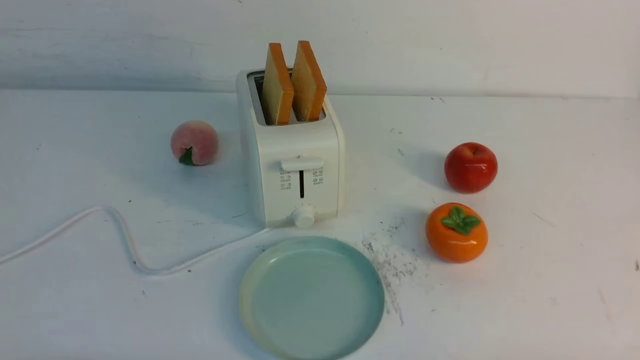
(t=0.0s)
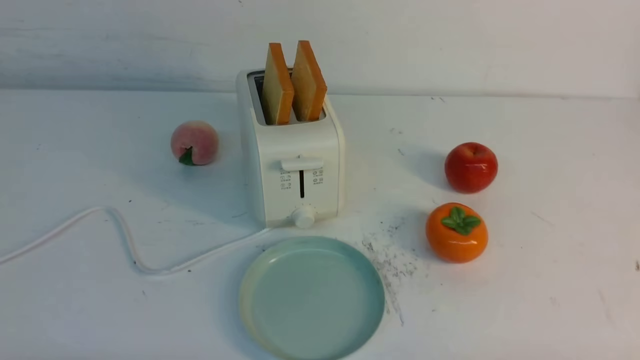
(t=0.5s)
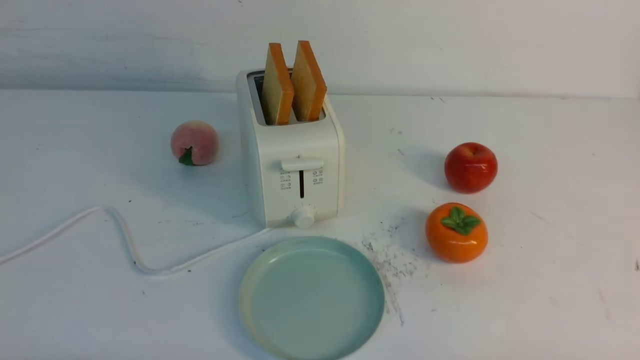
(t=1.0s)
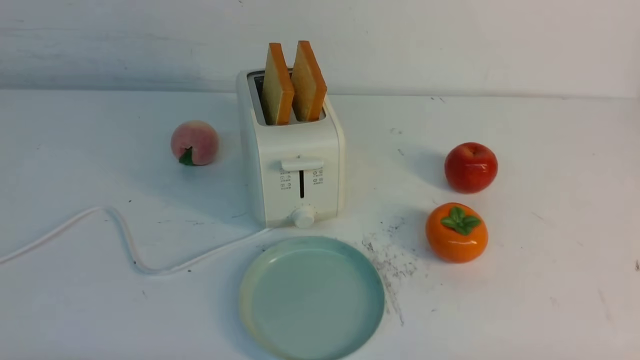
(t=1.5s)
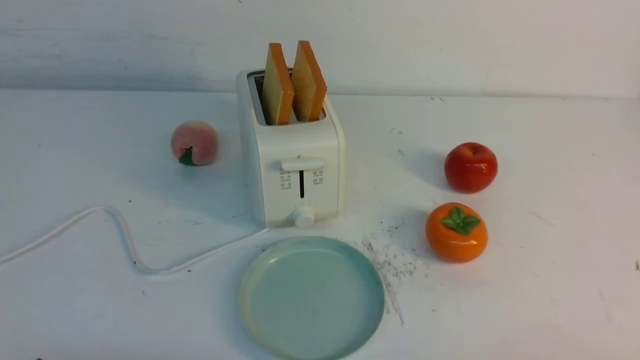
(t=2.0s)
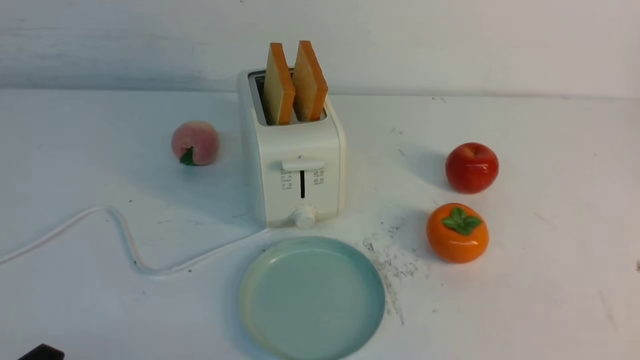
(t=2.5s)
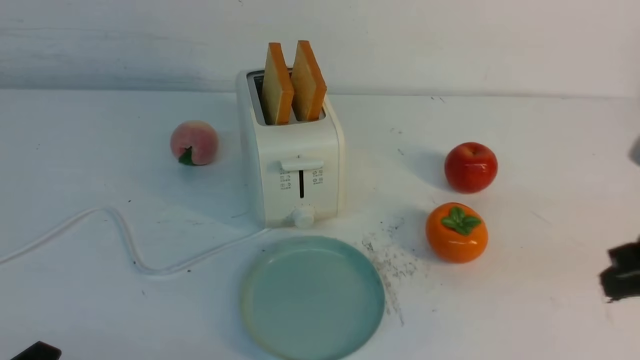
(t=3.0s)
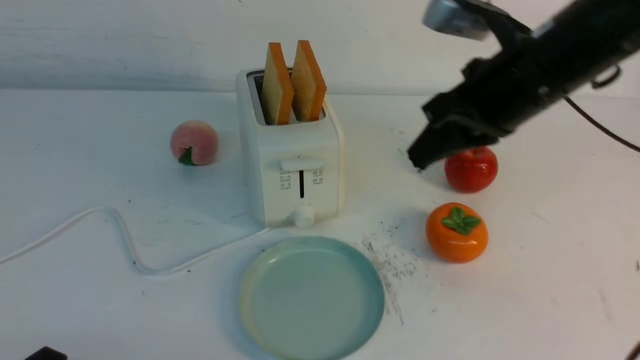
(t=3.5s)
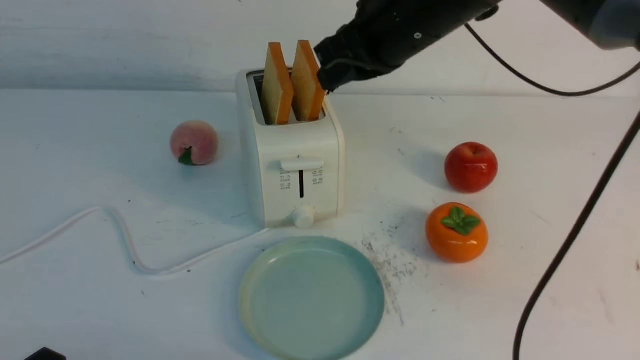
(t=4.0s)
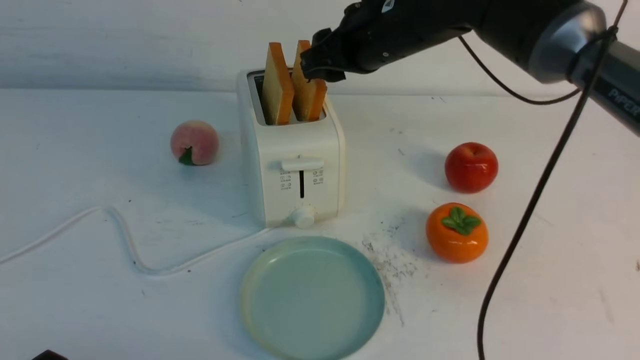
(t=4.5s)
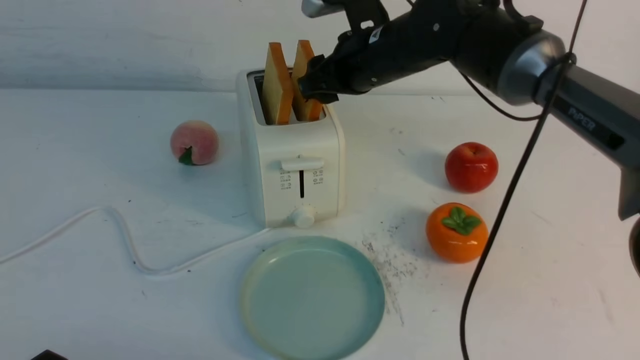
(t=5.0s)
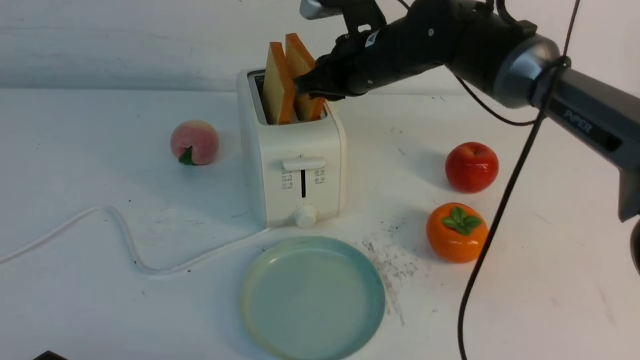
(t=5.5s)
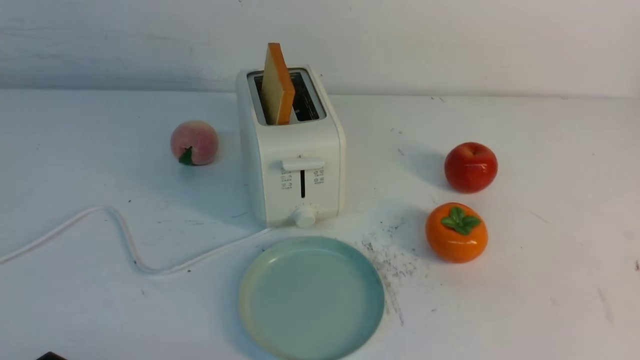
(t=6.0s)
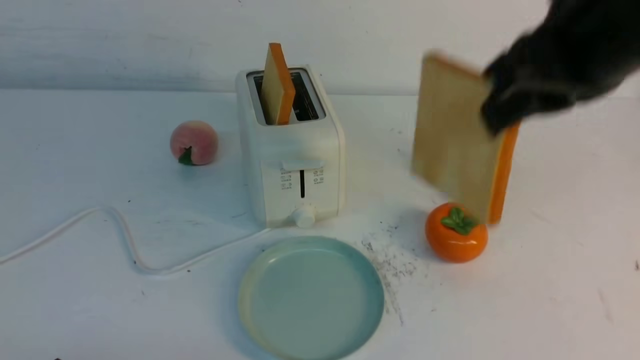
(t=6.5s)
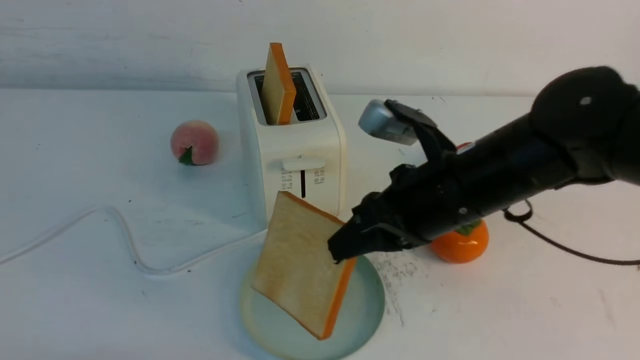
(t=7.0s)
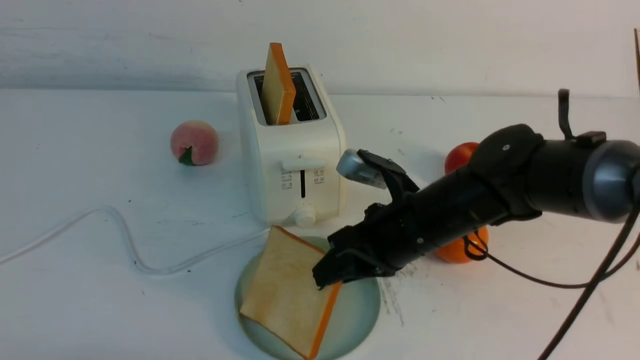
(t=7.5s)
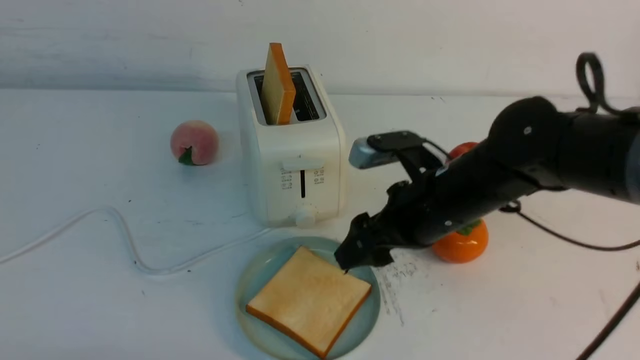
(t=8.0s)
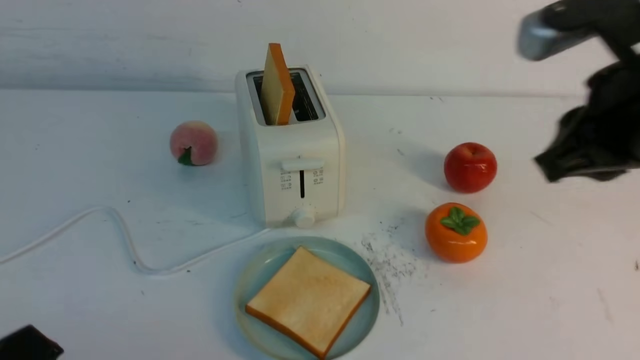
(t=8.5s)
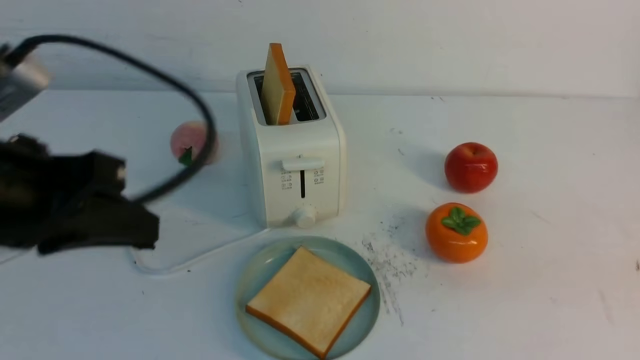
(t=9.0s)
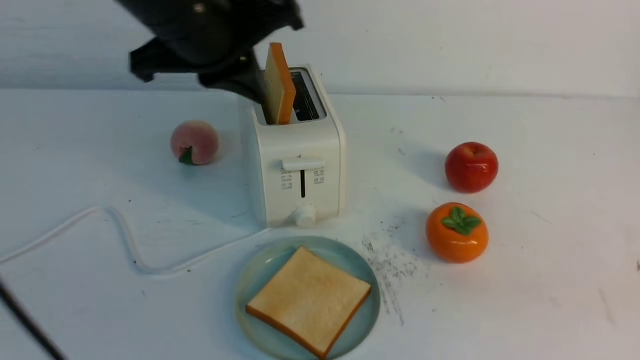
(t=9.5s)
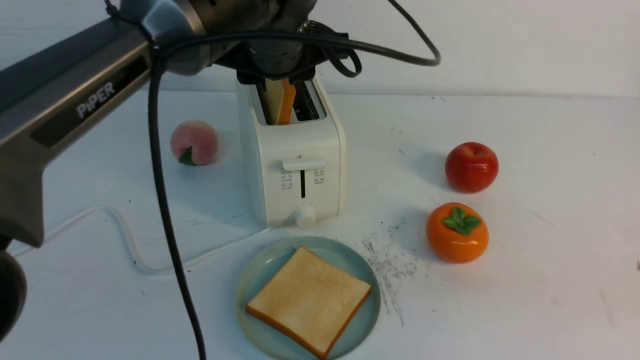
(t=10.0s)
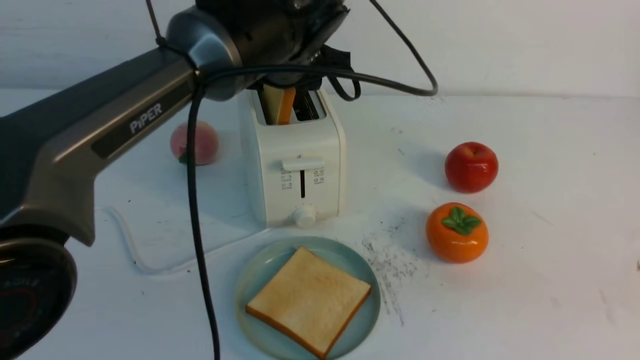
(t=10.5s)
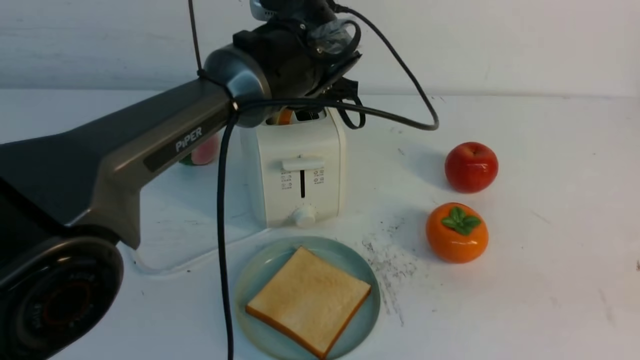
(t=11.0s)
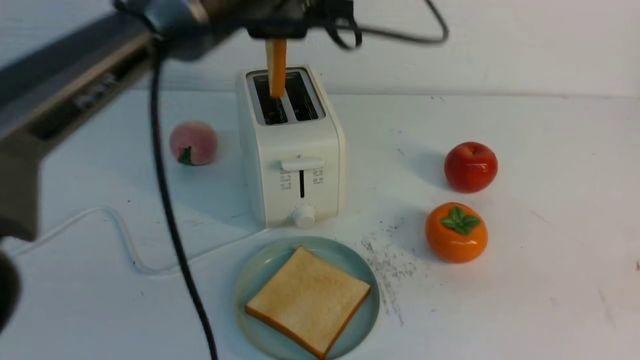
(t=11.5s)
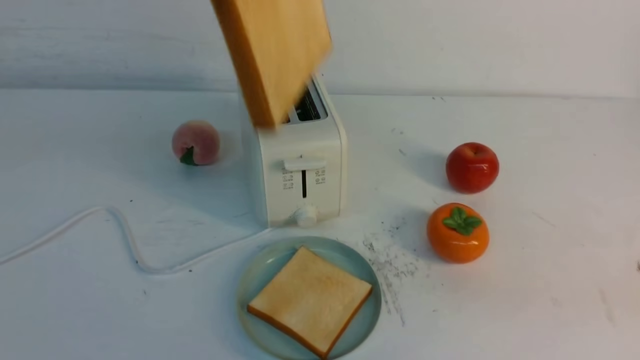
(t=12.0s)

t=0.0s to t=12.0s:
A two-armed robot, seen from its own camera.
Task of the whole recording: take toasted bread from bread machine on white table place on plate.
Step, t=0.0s to t=5.5s: use the right arm to take out a slice of bread.
Step, t=6.0s to t=8.0s: use the right arm to put a slice of bread into the plate.
Step, t=8.5s to t=11.0s: use the left arm to take out a slice of bread.
t=2.0s to t=4.0s: The right gripper is displaced forward, to the left and upward by roughly 40 cm, and closes up.
t=4.0s to t=6.0s: The right gripper shifts about 15 cm upward, backward and to the right, and opens, then closes again.
t=6.0s to t=8.0s: The right gripper heads downward, covering some 25 cm, and opens.
t=8.0s to t=10.0s: The right gripper travels backward, to the right and upward by some 30 cm, and closes up. The left gripper shifts about 40 cm forward, to the right and upward, and closes, then reopens.
t=10.0s to t=12.0s: The left gripper moves backward and upward, some 20 cm, and closes its fingers.

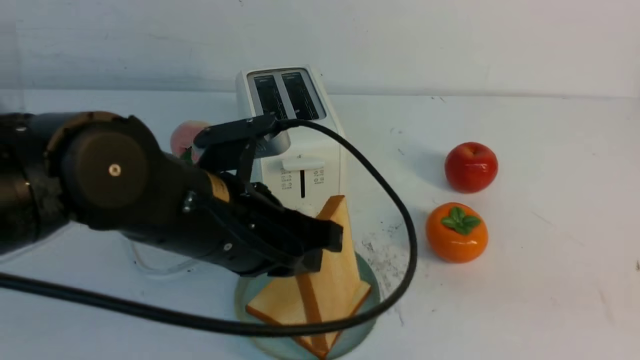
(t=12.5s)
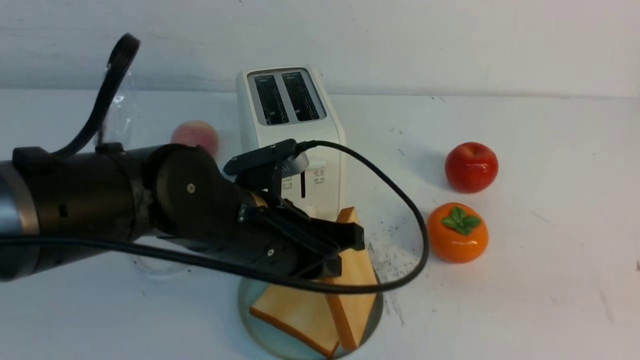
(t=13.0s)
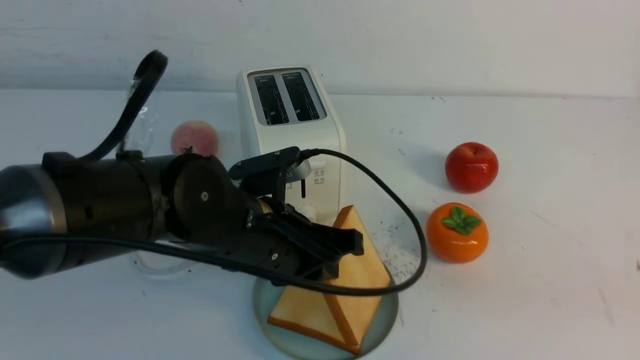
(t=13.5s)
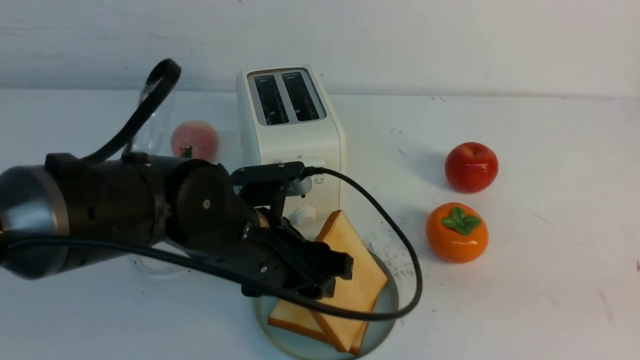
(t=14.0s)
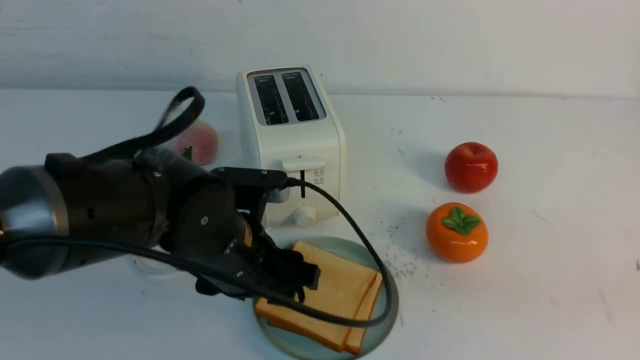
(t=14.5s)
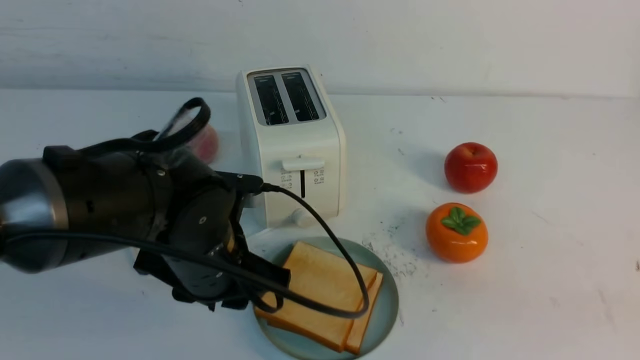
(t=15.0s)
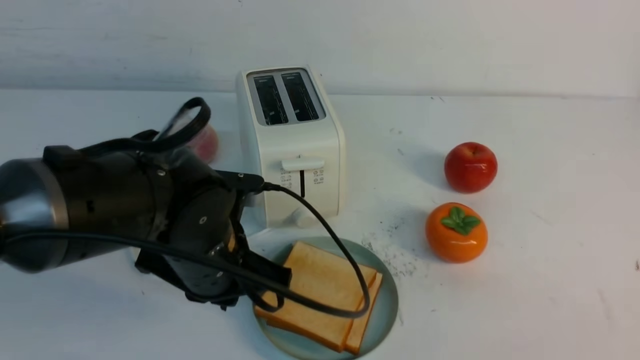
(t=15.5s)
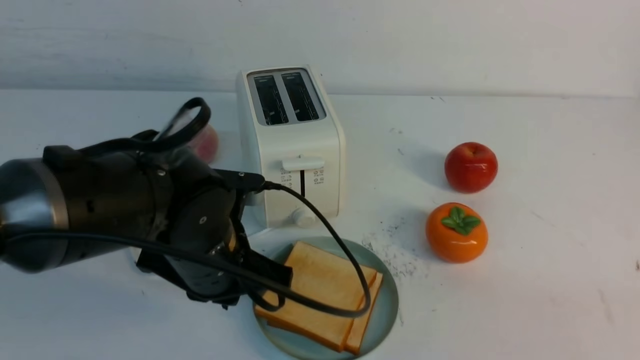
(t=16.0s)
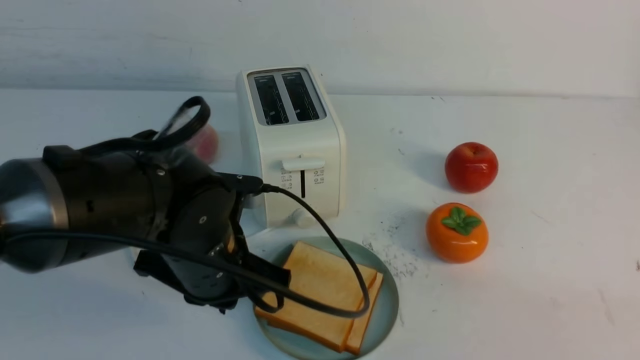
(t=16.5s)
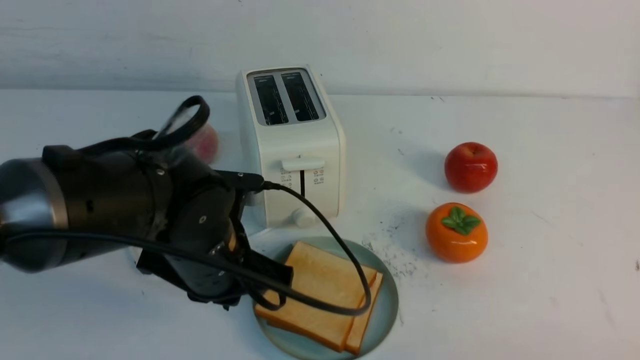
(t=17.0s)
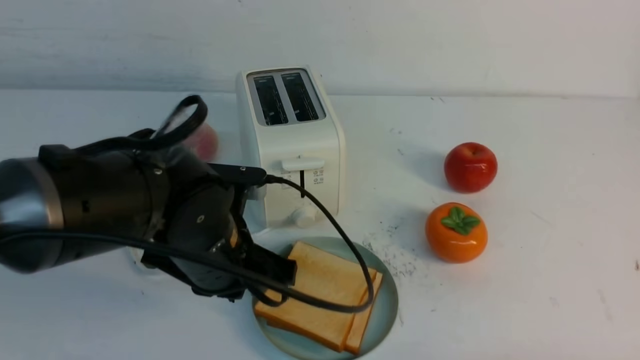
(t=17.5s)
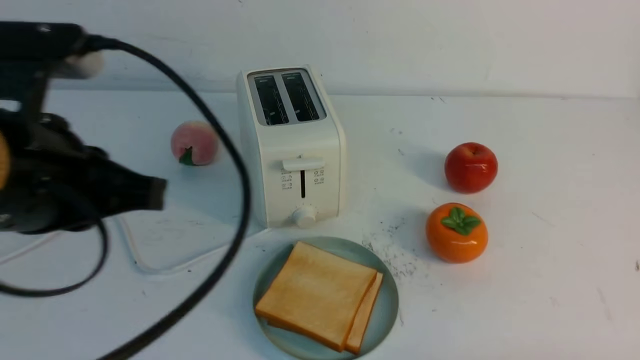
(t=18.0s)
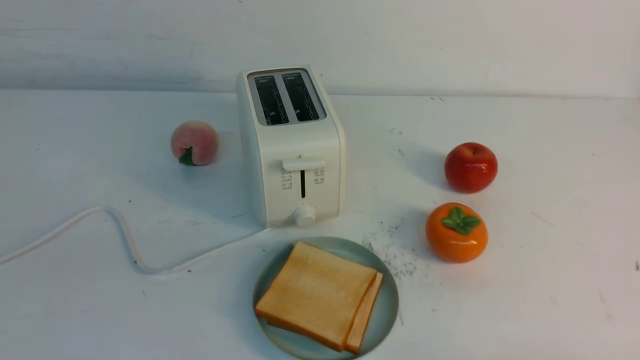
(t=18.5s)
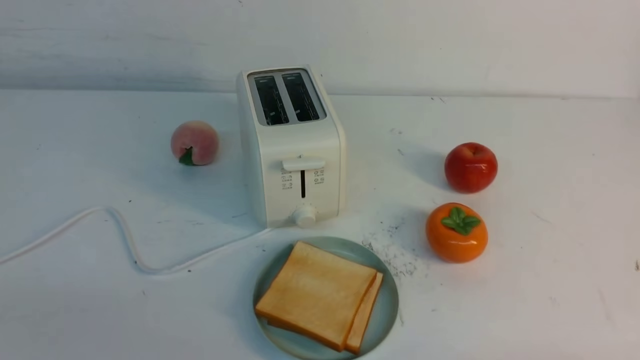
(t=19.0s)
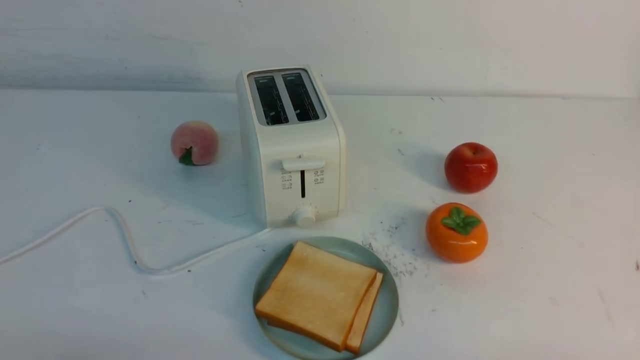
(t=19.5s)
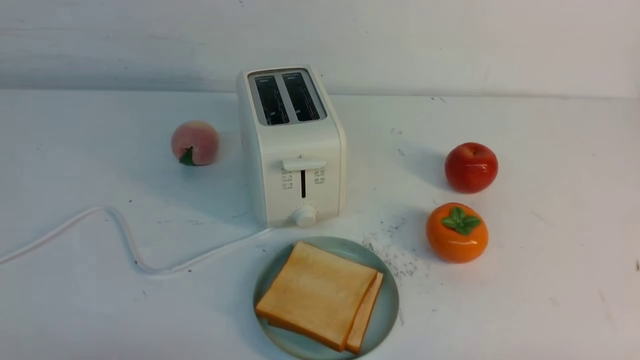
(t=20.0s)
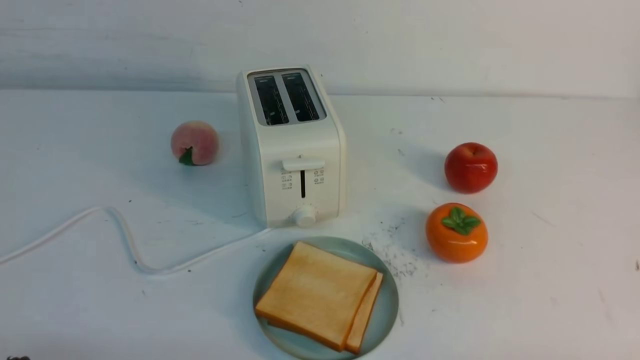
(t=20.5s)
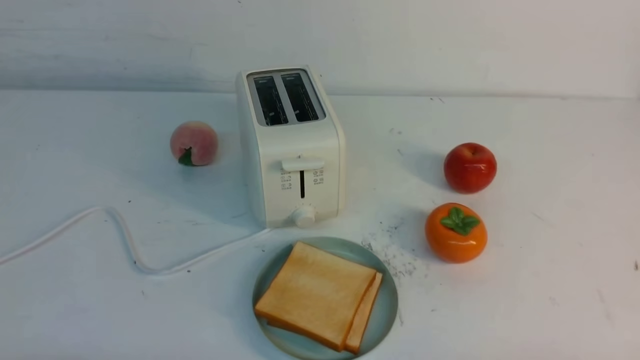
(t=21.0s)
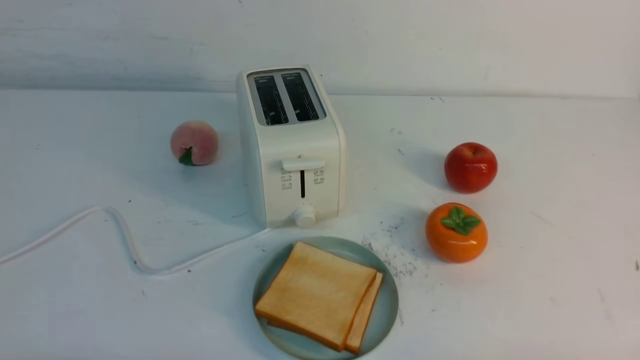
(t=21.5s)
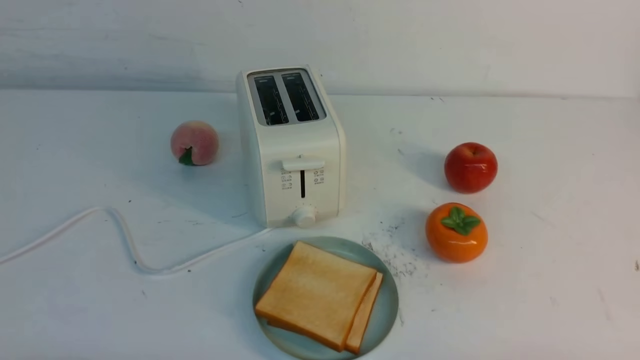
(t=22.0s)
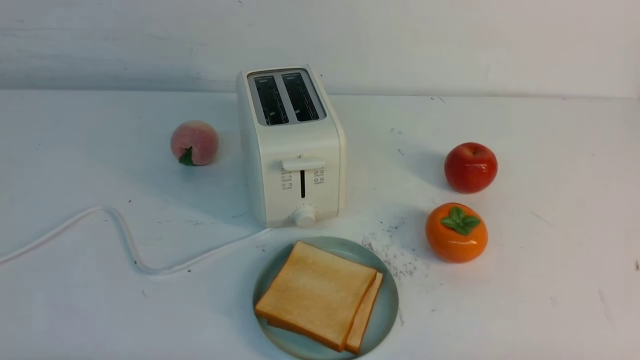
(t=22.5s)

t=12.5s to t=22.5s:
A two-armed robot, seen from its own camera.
Task of the whole recording: take toasted bread from bread machine on white table place on plate.
Step, t=12.5s to t=17.5s: use the left arm to put a slice of bread into the empty plate.
t=12.5s to t=14.5s: The left gripper goes roughly 5 cm downward, and opens up.
t=14.5s to t=16.5s: The right gripper heads downward, covering roughly 10 cm. The left gripper closes its fingers.
t=16.5s to t=18.5s: The left gripper shifts roughly 30 cm backward, upward and to the left; the right gripper is displaced downward by some 10 cm.
